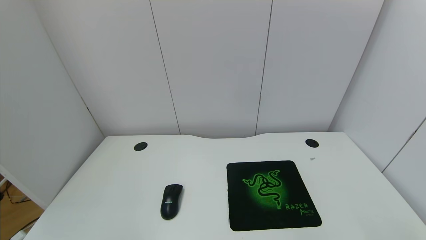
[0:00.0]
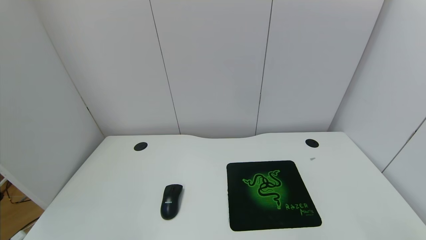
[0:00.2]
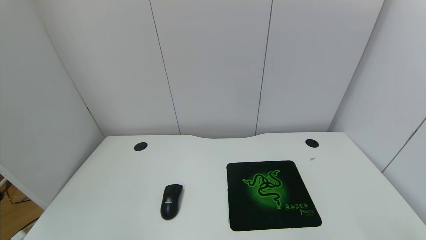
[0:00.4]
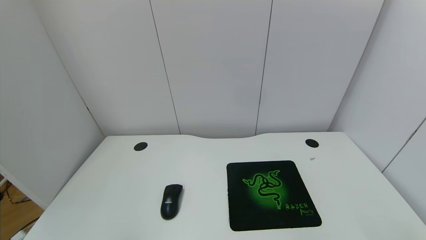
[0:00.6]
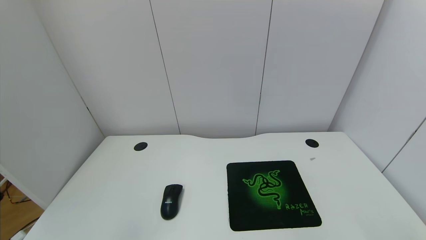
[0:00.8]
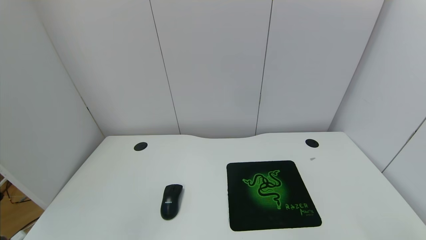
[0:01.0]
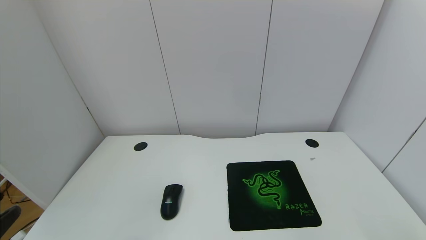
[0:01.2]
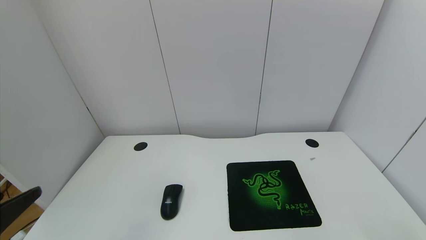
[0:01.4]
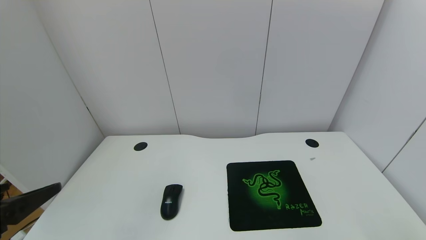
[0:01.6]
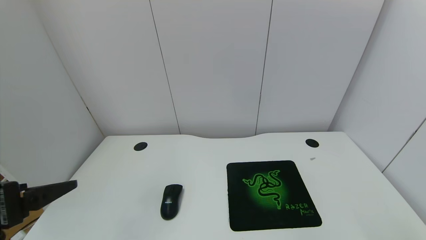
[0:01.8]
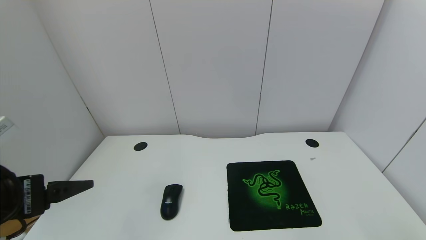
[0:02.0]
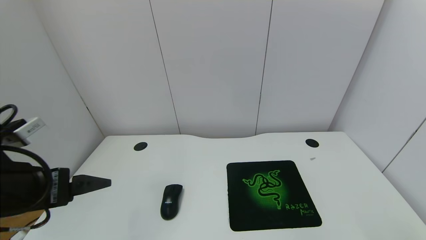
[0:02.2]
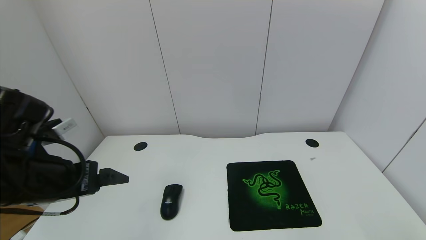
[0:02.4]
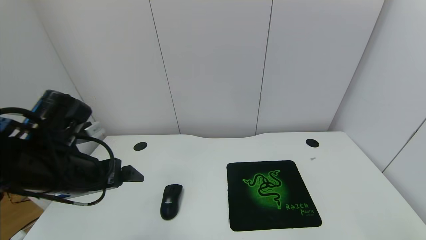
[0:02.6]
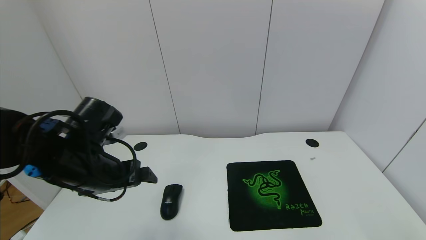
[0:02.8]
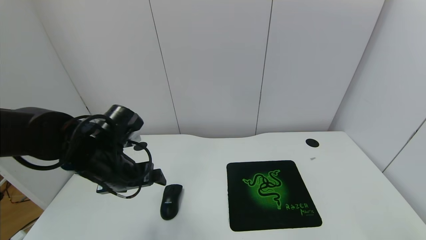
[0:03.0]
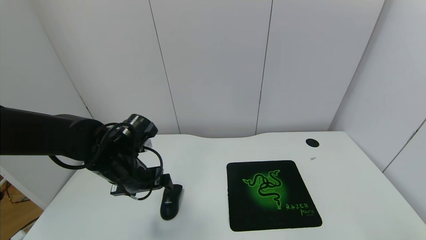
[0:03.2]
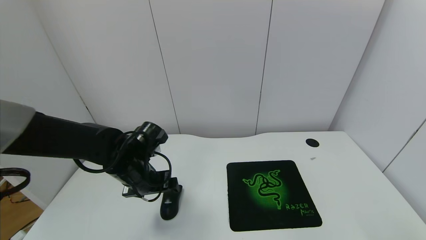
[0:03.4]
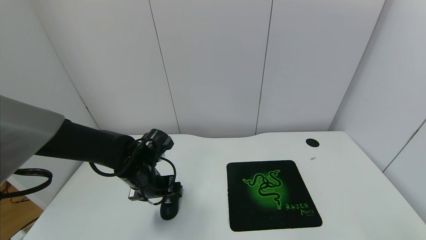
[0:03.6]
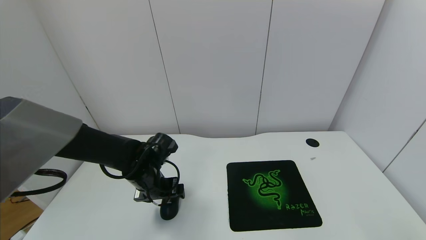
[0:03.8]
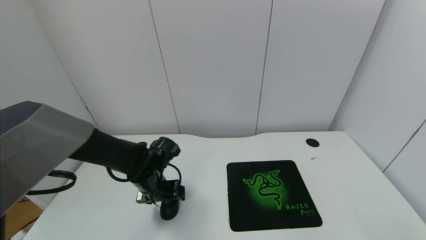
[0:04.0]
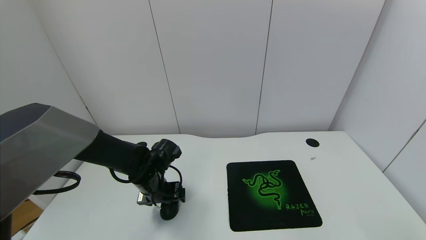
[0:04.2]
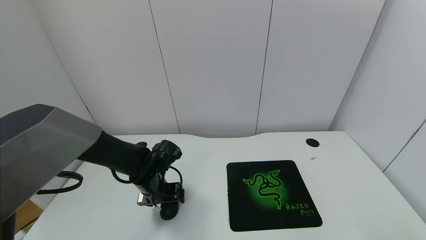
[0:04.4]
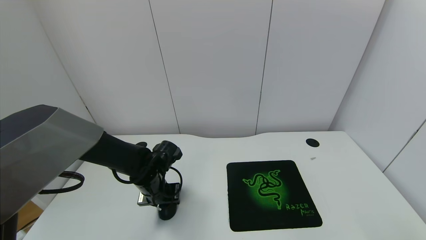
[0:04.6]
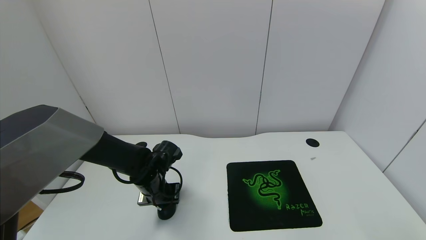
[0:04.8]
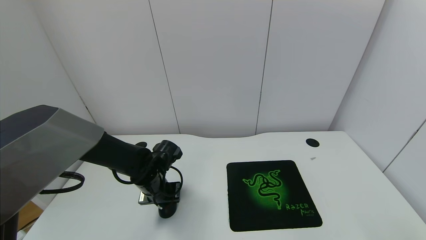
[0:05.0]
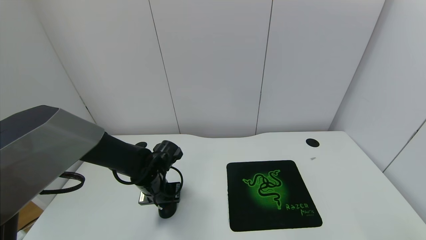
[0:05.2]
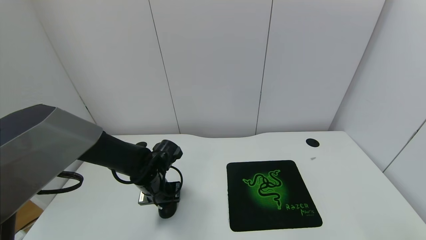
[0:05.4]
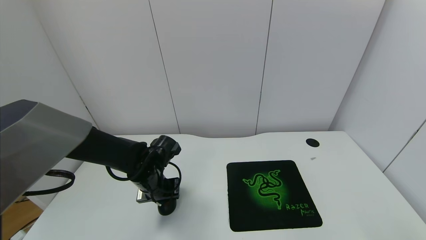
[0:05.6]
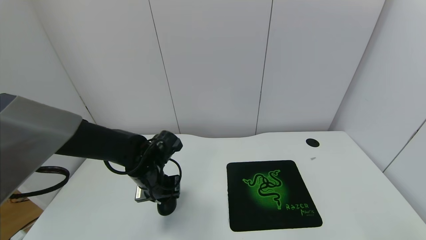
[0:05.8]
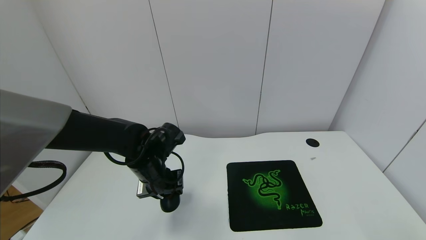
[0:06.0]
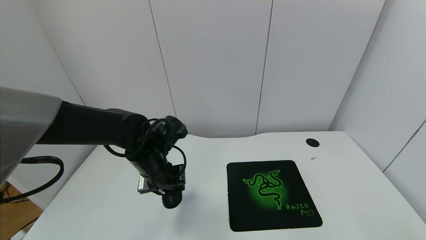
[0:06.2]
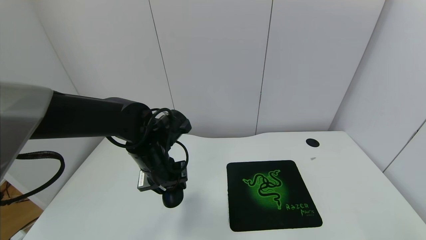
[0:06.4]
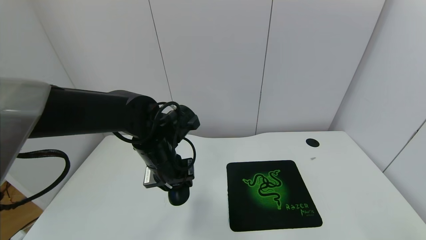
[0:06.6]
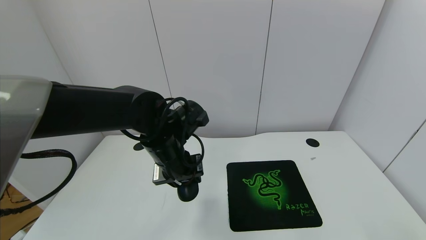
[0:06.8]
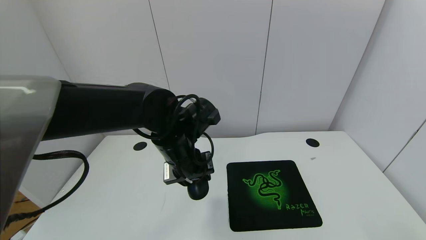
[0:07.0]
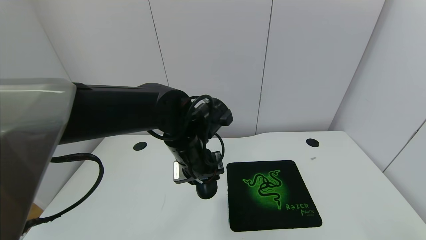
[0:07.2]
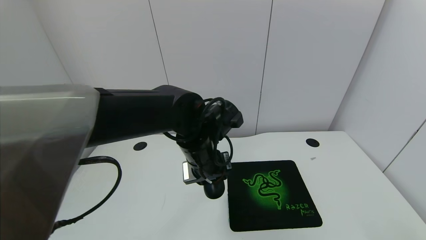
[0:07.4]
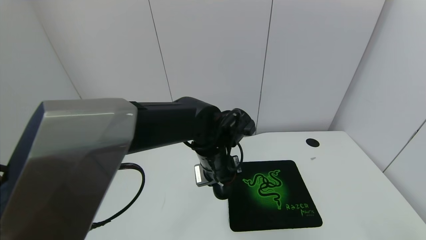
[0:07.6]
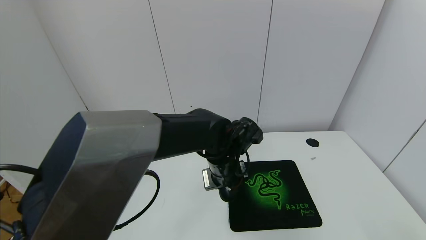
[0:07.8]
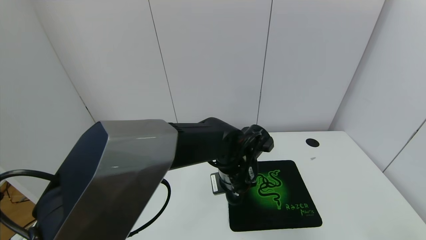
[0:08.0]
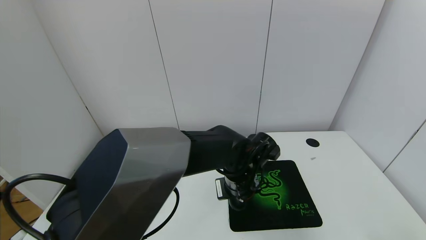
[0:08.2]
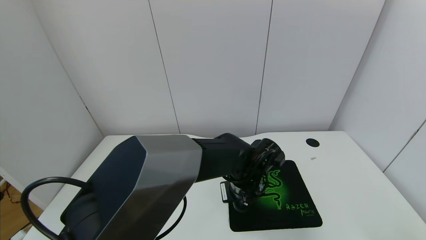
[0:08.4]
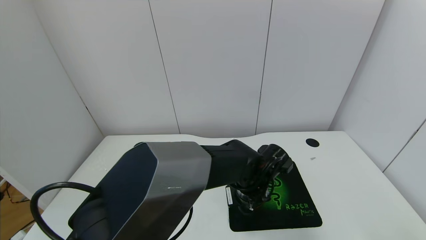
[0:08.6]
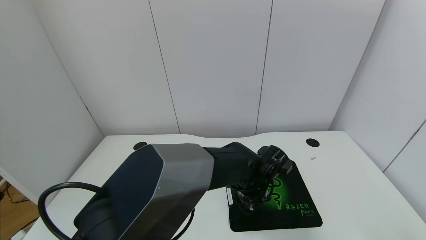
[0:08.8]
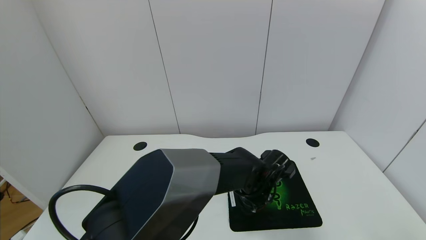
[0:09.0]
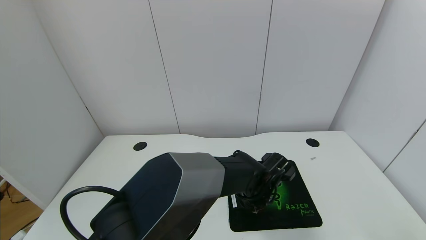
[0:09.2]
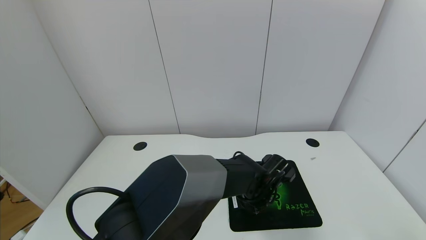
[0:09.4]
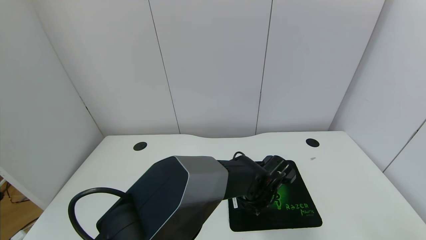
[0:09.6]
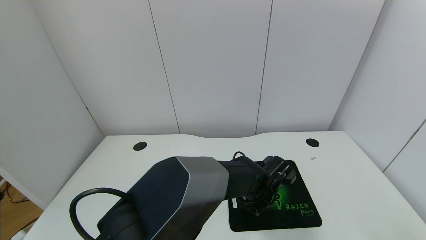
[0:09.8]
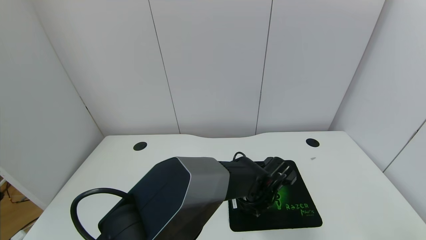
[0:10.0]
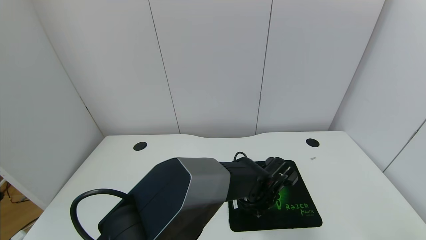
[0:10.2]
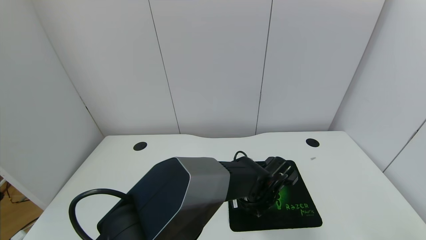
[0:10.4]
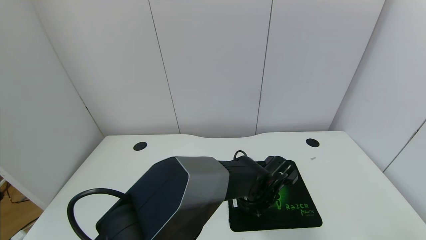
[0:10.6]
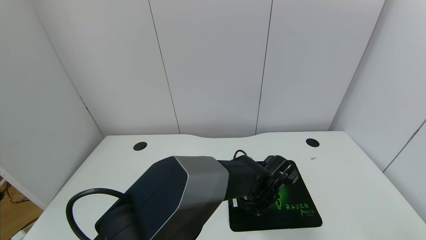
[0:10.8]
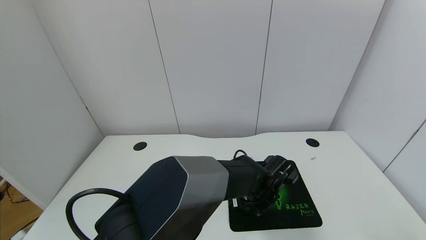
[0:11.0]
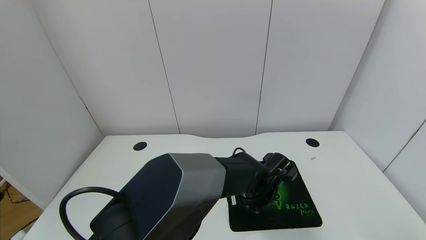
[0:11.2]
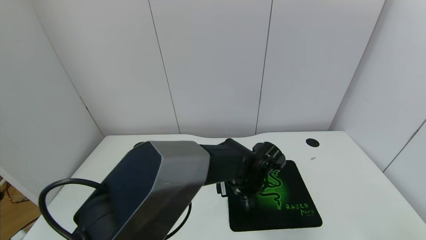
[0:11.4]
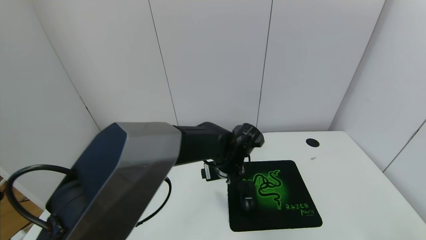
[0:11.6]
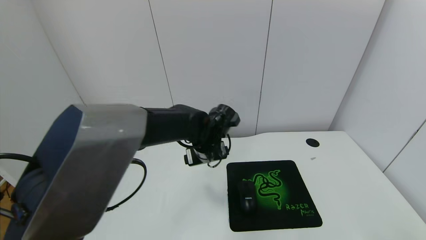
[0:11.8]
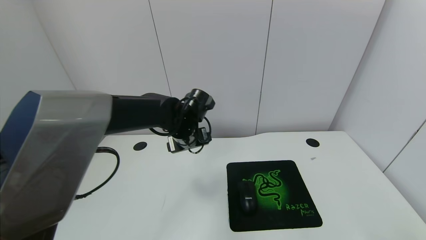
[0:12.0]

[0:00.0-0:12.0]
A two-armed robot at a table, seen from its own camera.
Task of the whole recording: use the gripper to move the mouse from one side of the table to the mouse pad on the opposite side.
Step, 0:00.0 to 0:04.6: Grasp the mouse with the left gripper.
Step, 0:04.8 to 0:11.6: Place the mouse on the mouse pad with the left gripper.
0:00.0 to 0:01.6: The left gripper moves upward and forward, roughly 20 cm.
0:01.6 to 0:03.0: The left gripper is displaced forward and to the right by about 20 cm.
0:03.0 to 0:04.4: The left gripper is displaced downward and forward by approximately 15 cm.
0:04.4 to 0:06.0: The left gripper shifts some 5 cm upward, and closes up.
0:06.0 to 0:07.6: The left gripper is displaced to the right by roughly 15 cm.
0:07.6 to 0:09.0: The left gripper is displaced downward and to the right by some 10 cm.
0:09.0 to 0:10.4: The left gripper opens.
0:10.4 to 0:12.0: The left gripper shifts about 20 cm to the left, upward and forward.

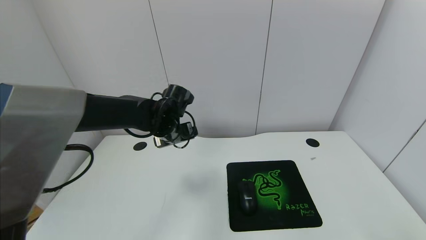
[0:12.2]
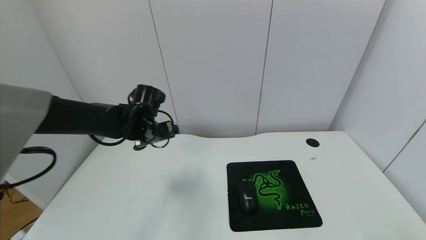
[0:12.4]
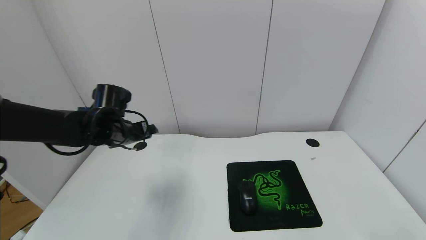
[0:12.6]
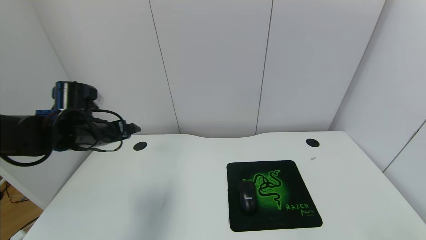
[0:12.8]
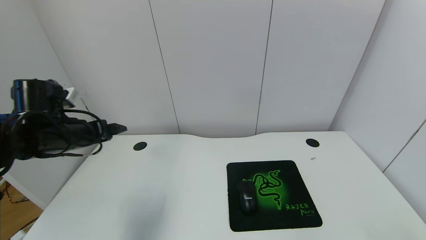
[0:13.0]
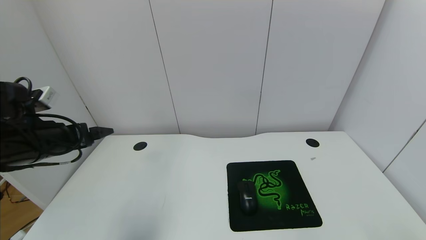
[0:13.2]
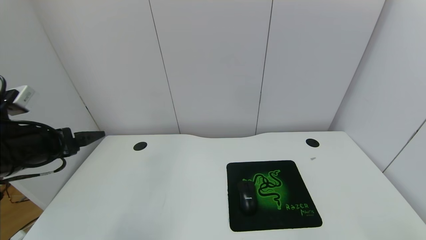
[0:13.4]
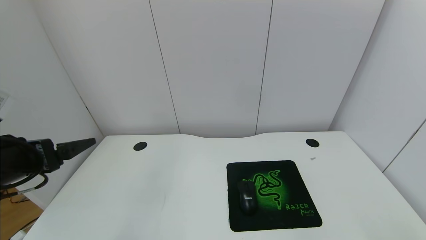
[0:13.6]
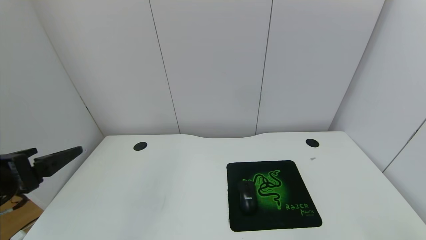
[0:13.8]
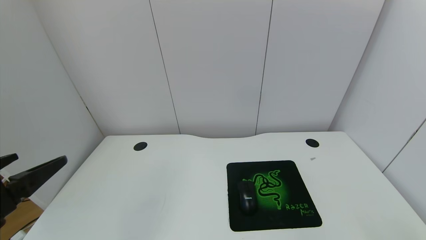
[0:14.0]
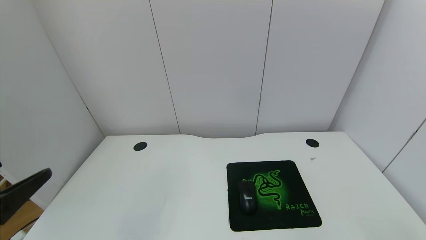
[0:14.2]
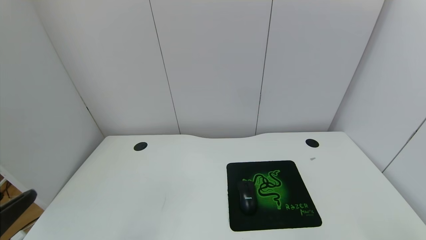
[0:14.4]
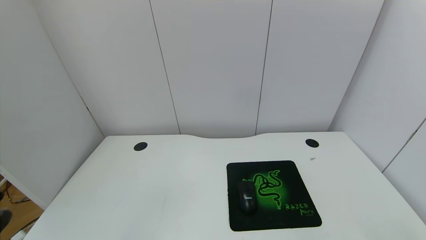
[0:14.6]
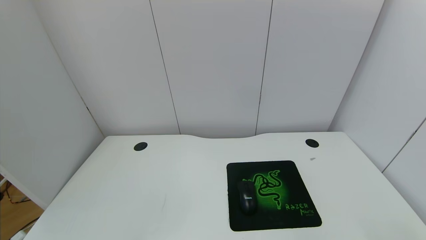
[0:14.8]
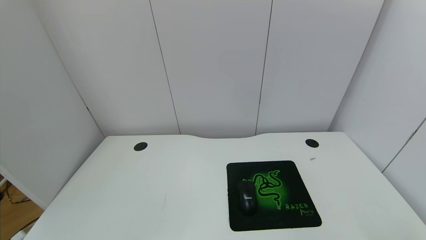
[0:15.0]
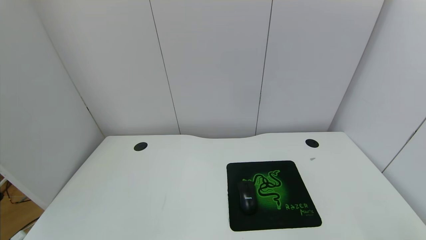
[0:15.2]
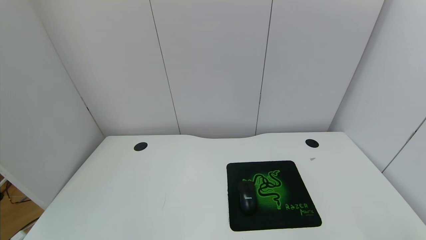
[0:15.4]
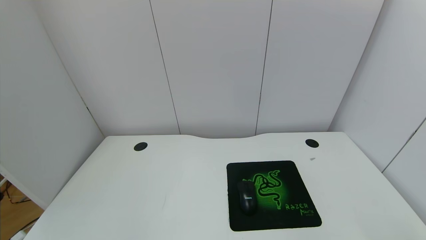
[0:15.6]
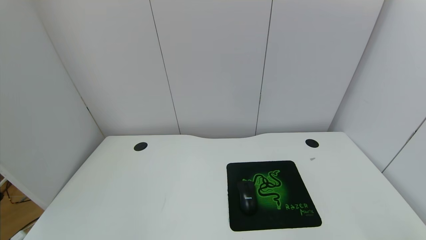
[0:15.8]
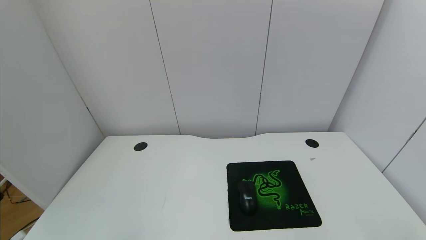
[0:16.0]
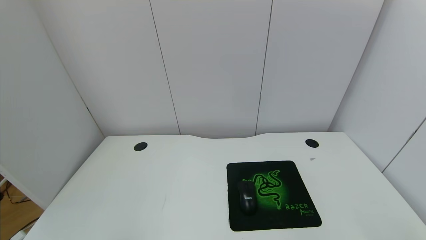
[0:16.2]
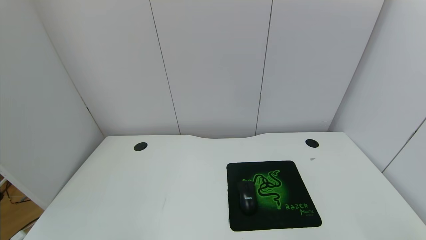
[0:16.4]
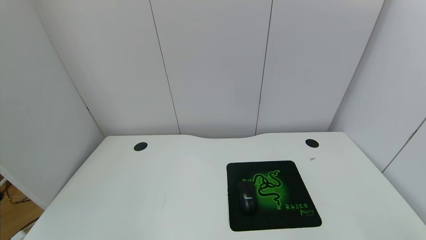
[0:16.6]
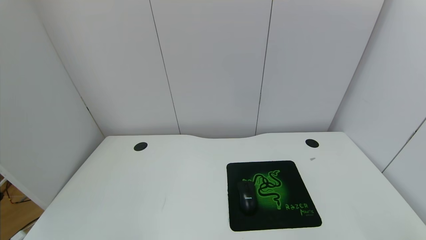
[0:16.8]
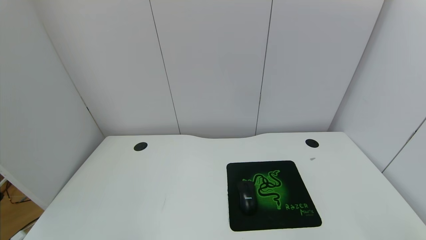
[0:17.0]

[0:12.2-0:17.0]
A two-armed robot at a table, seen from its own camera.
Task of the whole recording: use the gripper to move the mouse from one side of the table to the mouse pad on the opposite side.
0:12.2 to 0:13.8: The left gripper is displaced backward and to the left by approximately 30 cm.
0:13.8 to 0:15.4: The left gripper moves backward, about 20 cm.
